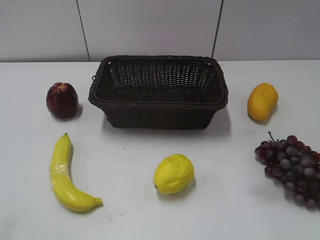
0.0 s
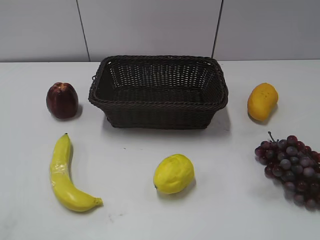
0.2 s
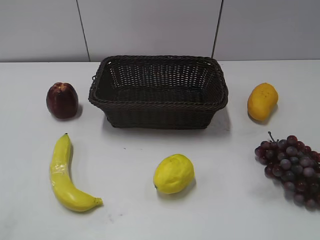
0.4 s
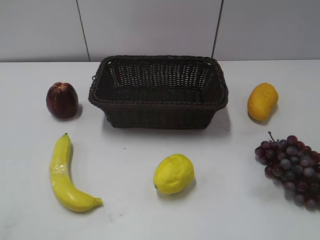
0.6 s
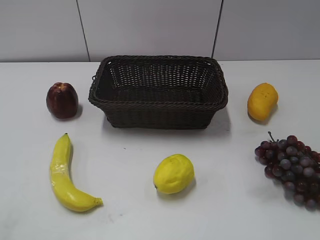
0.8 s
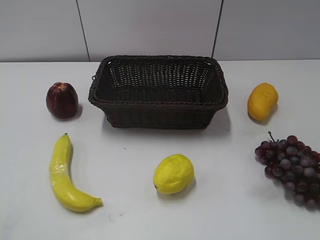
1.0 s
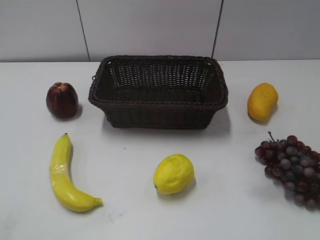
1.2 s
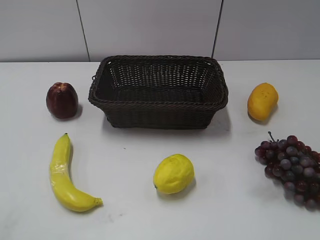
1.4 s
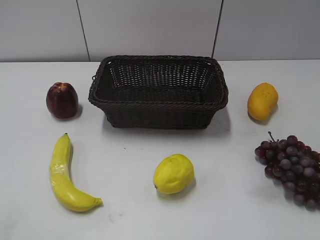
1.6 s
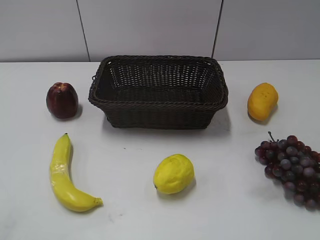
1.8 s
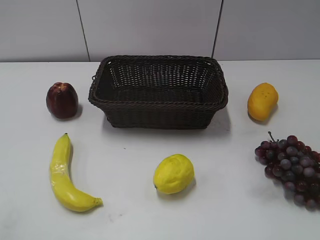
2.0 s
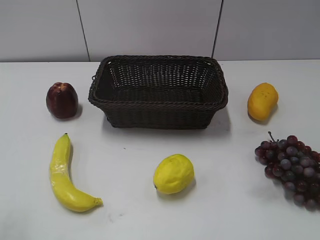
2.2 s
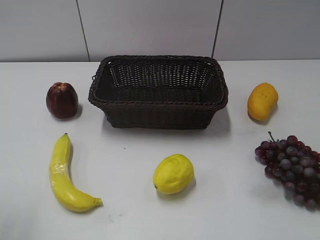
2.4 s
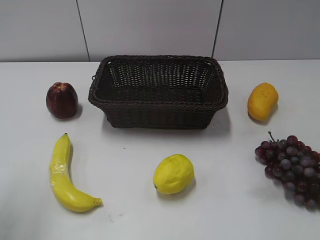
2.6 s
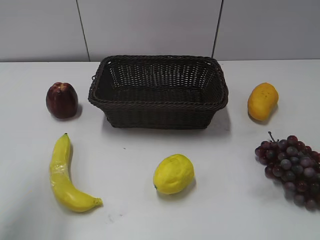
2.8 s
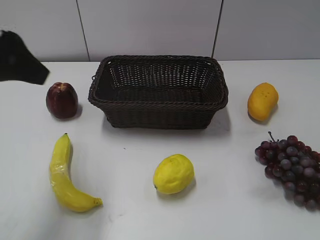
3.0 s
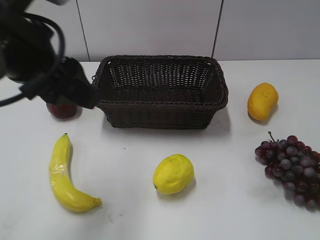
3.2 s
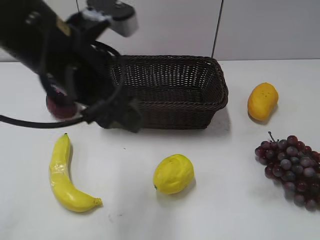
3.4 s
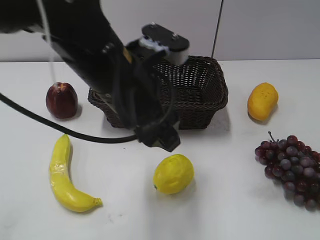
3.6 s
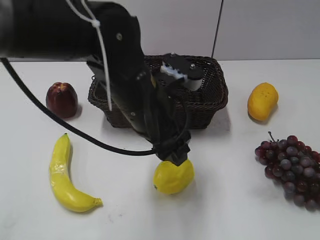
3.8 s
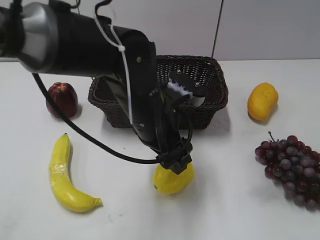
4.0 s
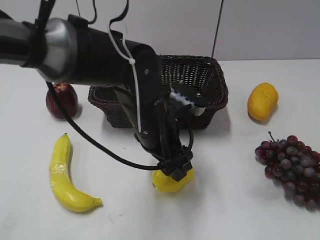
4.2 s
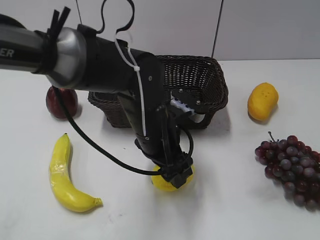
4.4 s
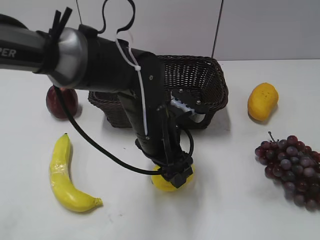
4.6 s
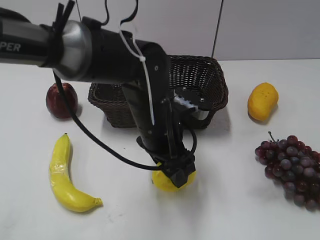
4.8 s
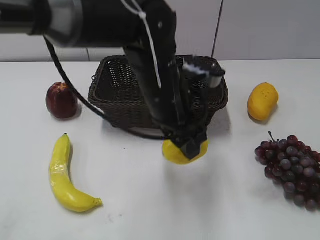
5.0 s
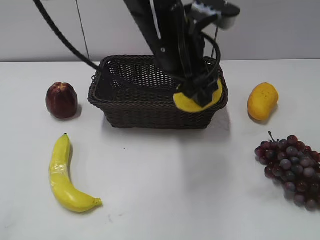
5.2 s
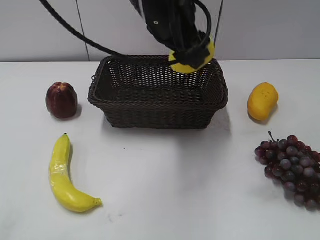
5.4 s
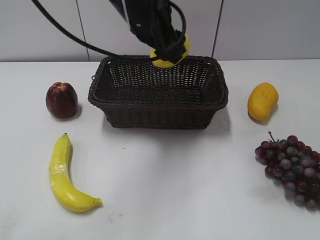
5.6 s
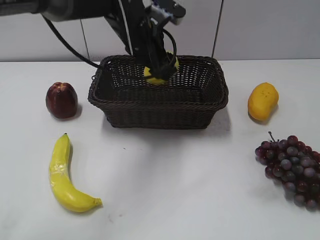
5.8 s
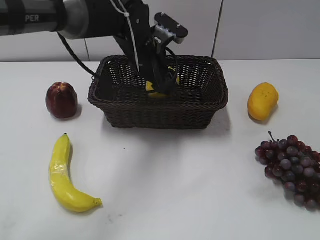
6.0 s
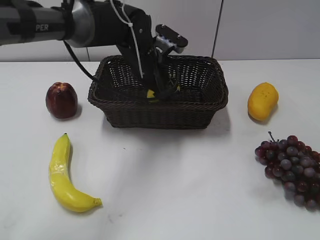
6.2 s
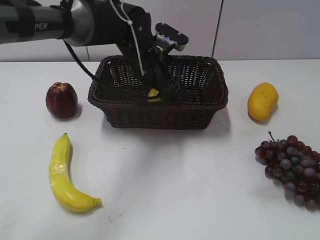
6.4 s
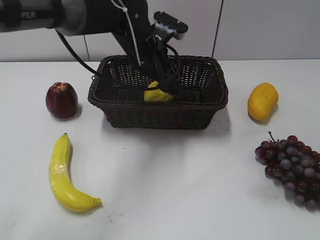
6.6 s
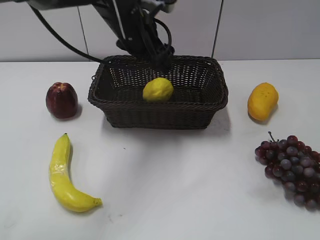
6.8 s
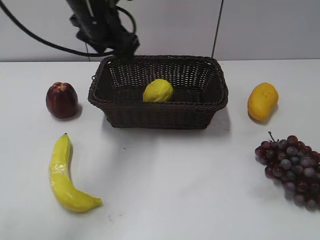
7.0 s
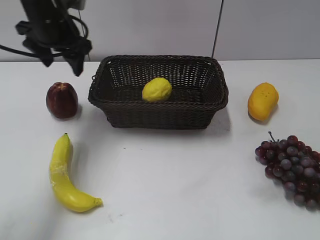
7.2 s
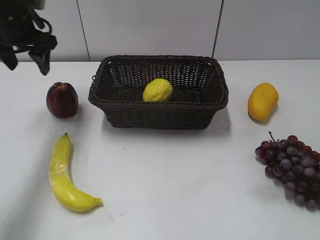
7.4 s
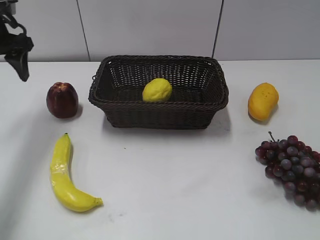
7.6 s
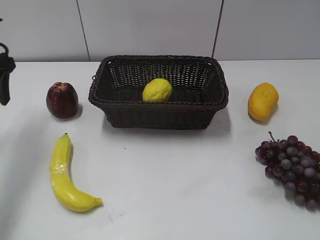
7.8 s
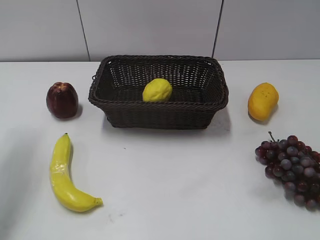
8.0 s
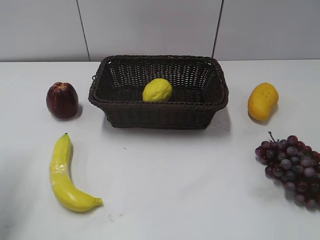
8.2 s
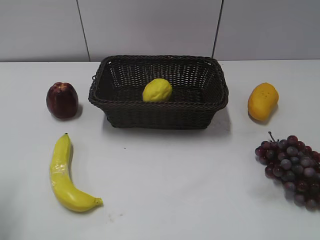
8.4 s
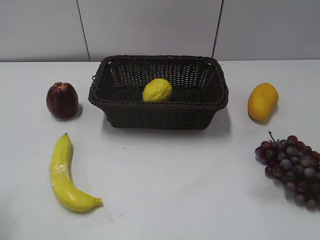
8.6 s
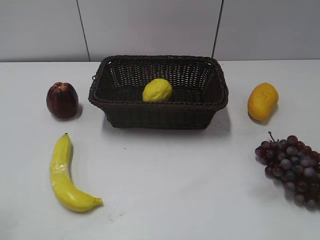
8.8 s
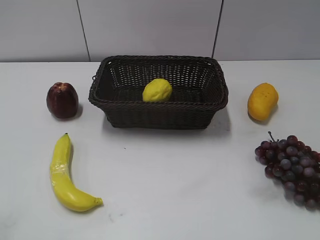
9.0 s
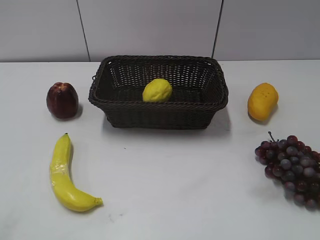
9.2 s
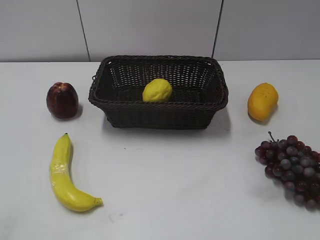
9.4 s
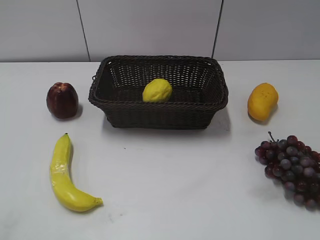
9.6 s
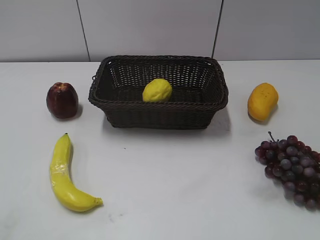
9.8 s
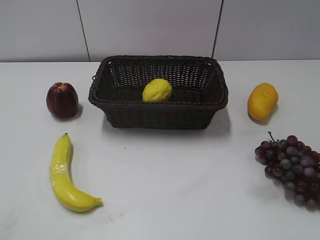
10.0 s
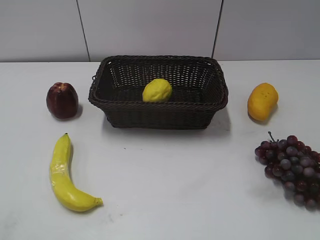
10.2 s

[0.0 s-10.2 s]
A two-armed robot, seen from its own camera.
Step, 3.0 to 4.8 s: Grasp the lemon with left gripper.
Step, 5.0 to 6.6 s: Place the lemon in the basket with left gripper.
1.4 to 3.0 s: The left gripper shifts some 25 cm forward.
3.0 to 4.4 s: The left gripper heads to the right and downward, covering about 30 cm.
4.4 to 5.8 s: The left gripper is displaced forward and upward by roughly 15 cm.
5.8 to 7.2 s: The left gripper is displaced to the left by approximately 15 cm, and opens up.
7.2 to 8.8 s: The left gripper heads backward and to the left, covering some 30 cm.
